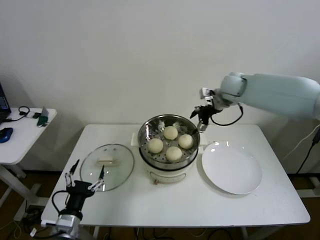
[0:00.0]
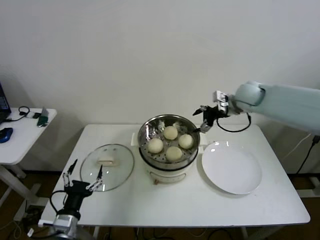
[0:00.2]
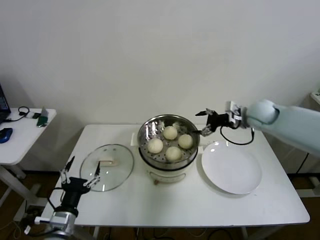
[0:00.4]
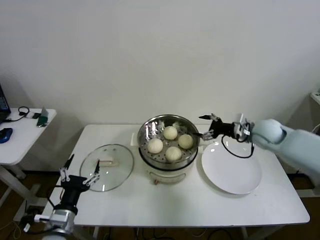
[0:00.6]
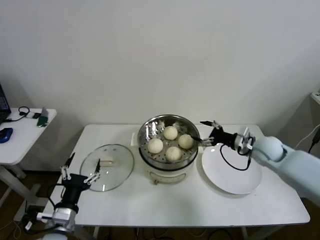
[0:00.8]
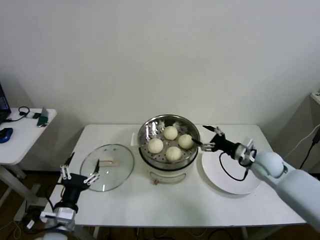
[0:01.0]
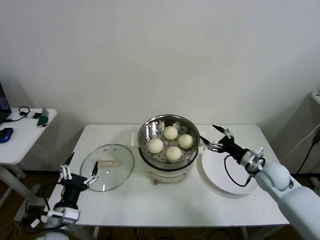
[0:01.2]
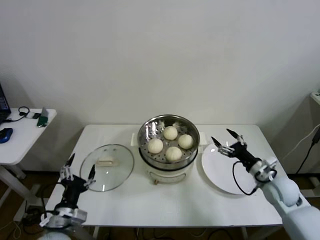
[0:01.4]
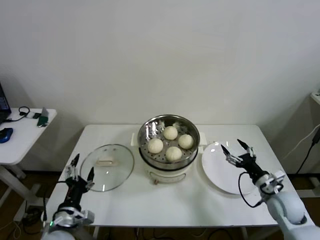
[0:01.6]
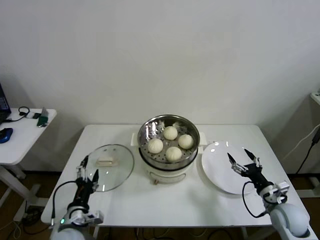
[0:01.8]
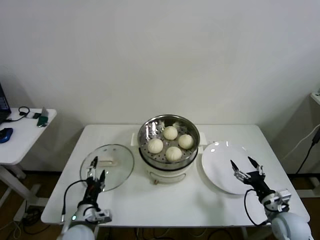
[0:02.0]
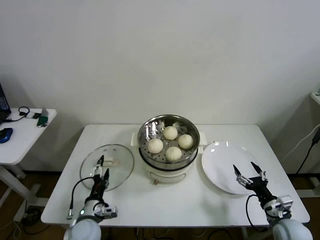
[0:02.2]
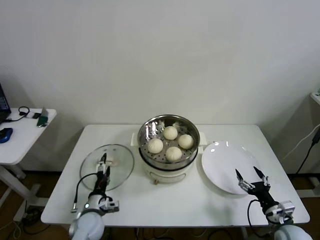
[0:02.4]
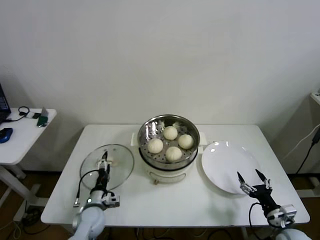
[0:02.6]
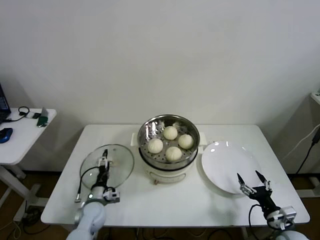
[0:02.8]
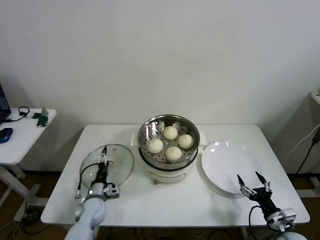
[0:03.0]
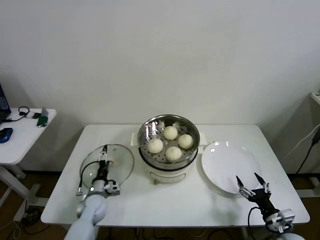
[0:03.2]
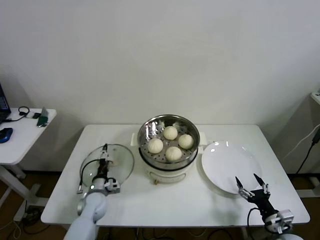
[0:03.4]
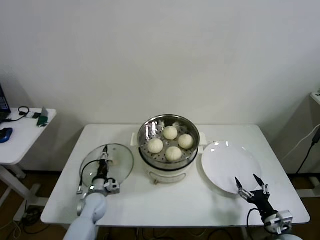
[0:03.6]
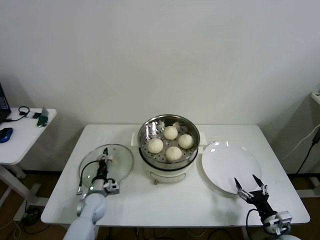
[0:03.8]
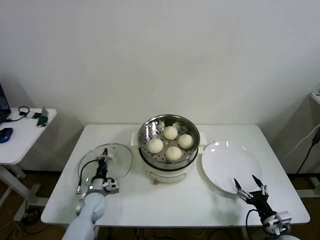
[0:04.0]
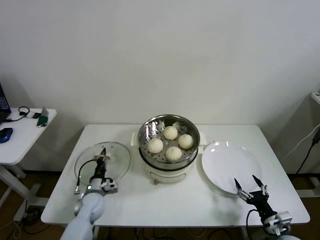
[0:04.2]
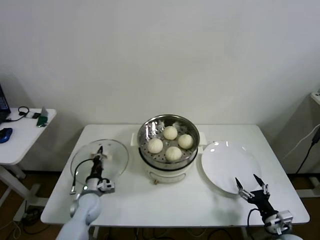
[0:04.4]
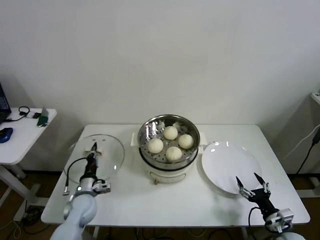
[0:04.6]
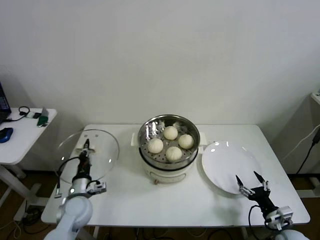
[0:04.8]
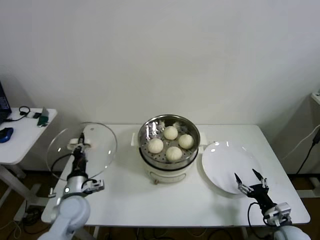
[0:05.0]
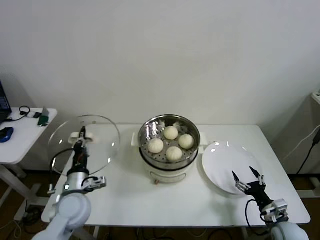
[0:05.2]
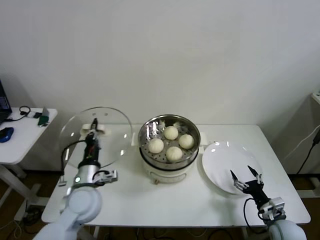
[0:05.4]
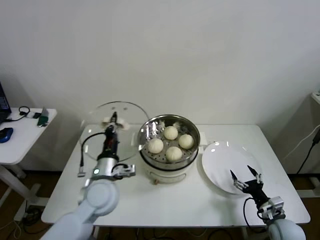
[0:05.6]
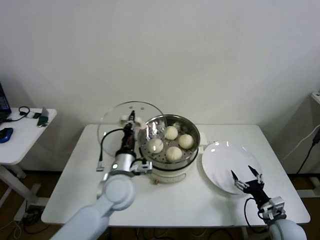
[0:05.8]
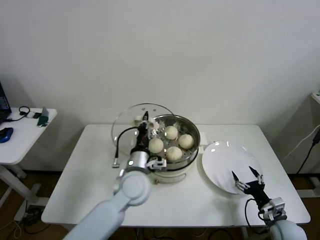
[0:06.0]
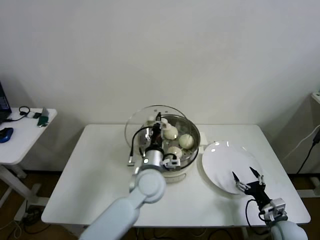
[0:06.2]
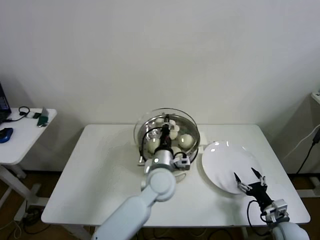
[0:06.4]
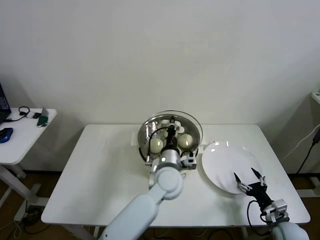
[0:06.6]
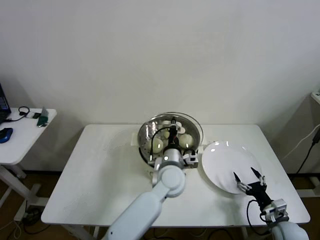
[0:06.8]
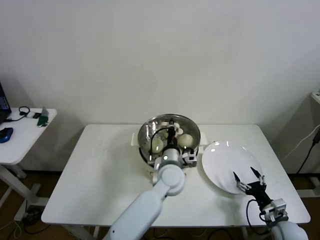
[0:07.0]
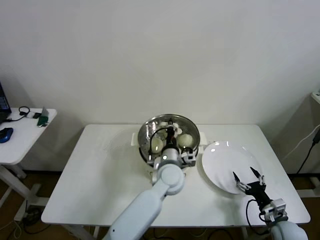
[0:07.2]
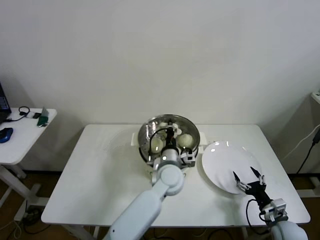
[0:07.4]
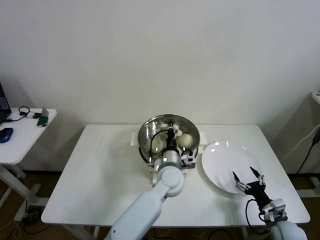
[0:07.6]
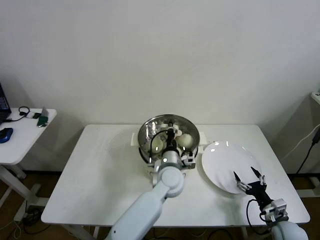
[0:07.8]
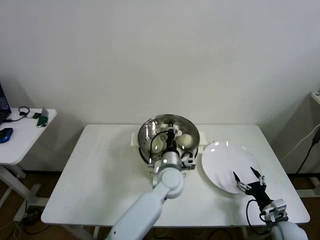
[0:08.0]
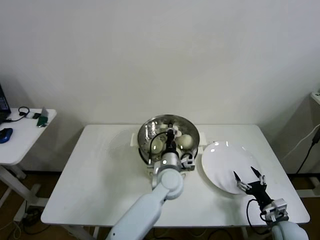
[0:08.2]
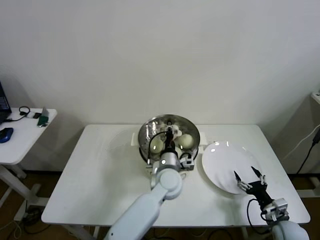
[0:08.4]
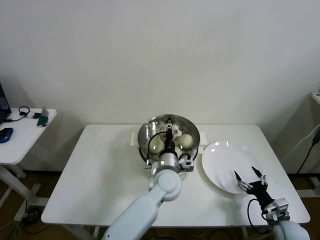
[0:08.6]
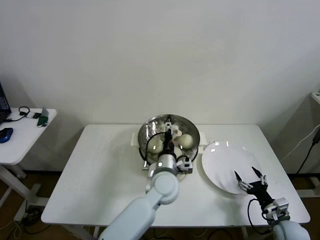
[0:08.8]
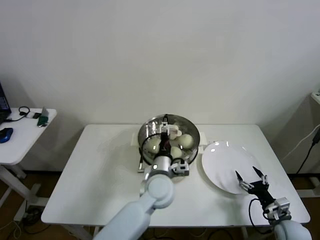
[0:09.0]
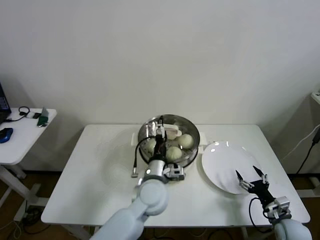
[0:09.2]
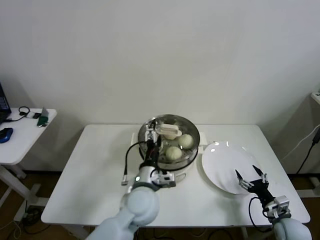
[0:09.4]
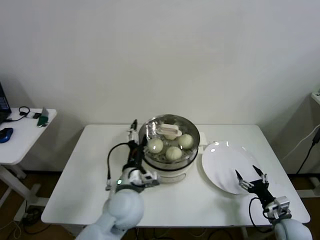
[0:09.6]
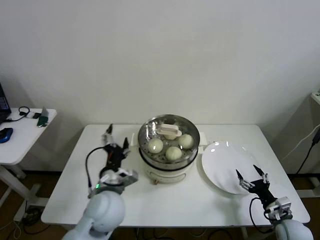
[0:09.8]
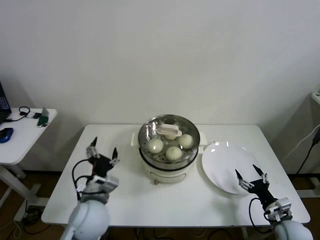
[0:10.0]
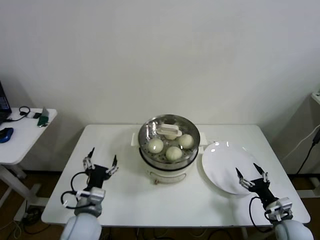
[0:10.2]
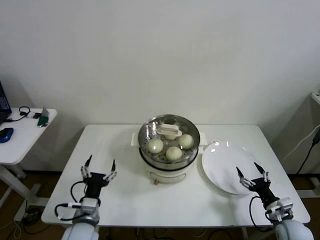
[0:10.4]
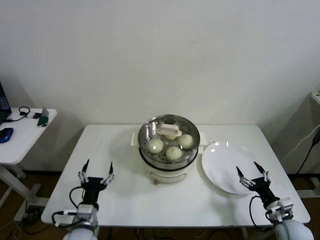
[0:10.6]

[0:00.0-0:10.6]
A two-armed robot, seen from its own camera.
Step, 0:00.0 to 0:04.0: Grasp the pot lid with left gripper.
Step, 0:04.2 to 0:08.2: Place the pot lid on the steamer with left gripper.
0:00.0 to 0:01.6: The right gripper heads backward, downward and to the right, covering about 40 cm.
0:01.6 to 0:03.0: The left gripper moves forward and downward, roughly 20 cm. Meanwhile the right gripper heads backward and downward, covering about 15 cm.
0:03.0 to 0:04.6: The left gripper closes its fingers.
0:04.6 to 0:06.0: The left gripper shifts some 25 cm to the right and upward.
0:06.0 to 0:07.6: The left gripper heads to the right, covering about 10 cm.
0:07.6 to 0:09.0: The left gripper opens its fingers.
0:09.0 to 0:10.6: The left gripper shifts roughly 25 cm to the left and backward.
